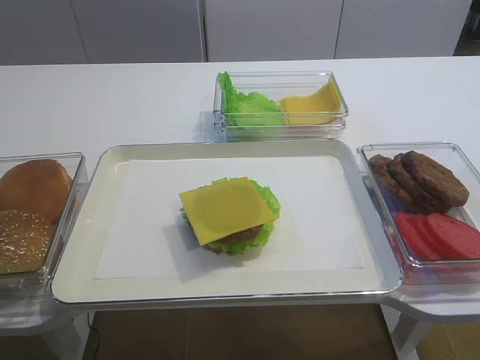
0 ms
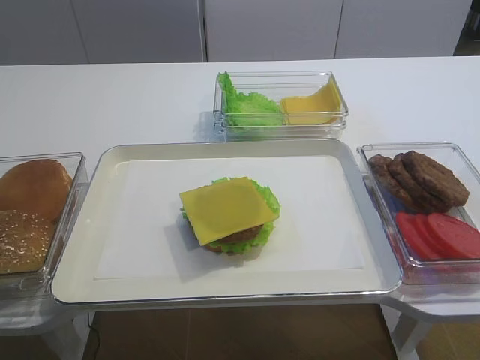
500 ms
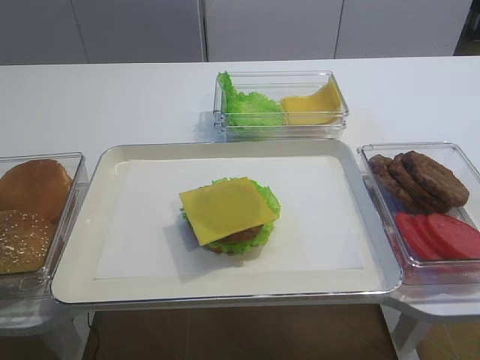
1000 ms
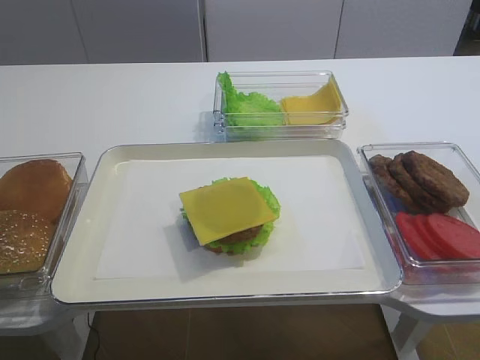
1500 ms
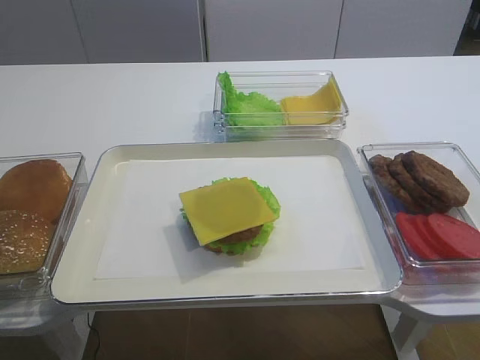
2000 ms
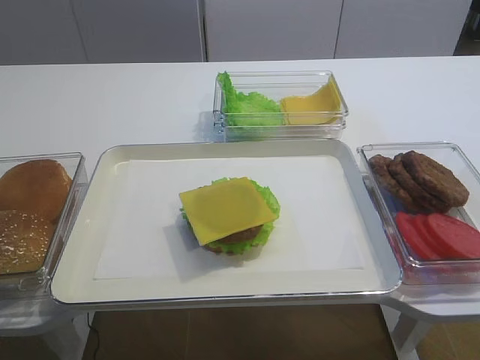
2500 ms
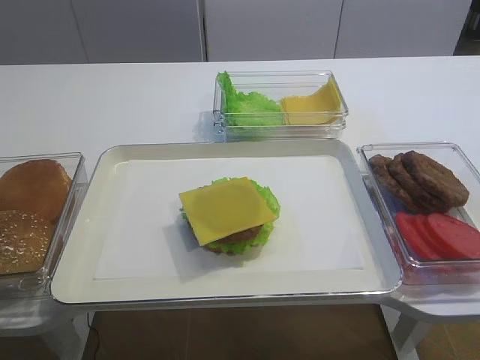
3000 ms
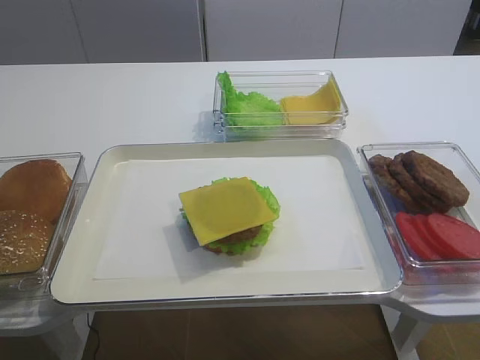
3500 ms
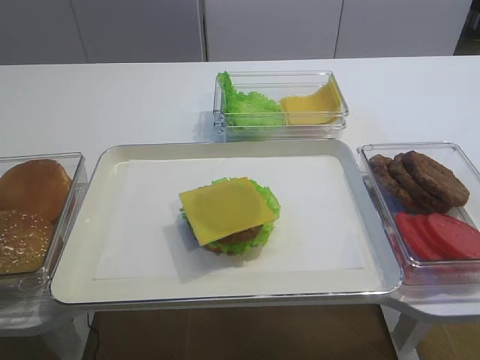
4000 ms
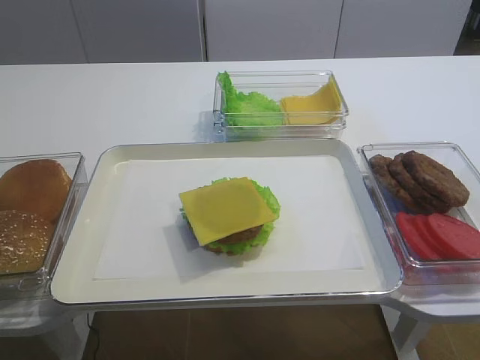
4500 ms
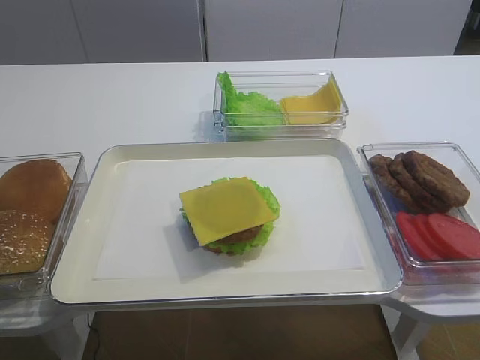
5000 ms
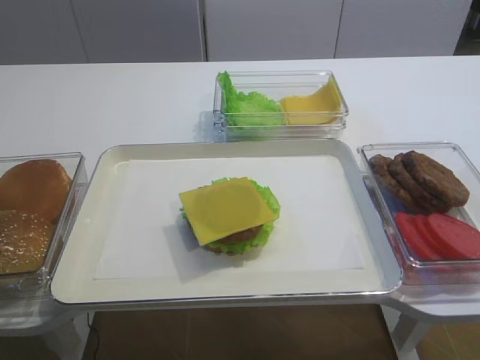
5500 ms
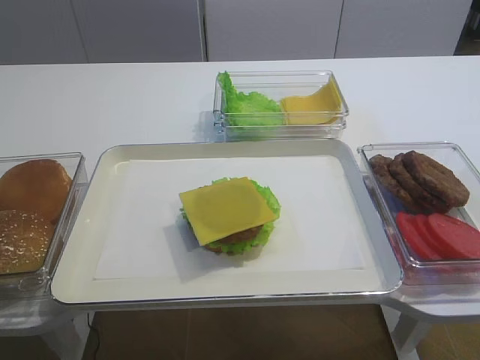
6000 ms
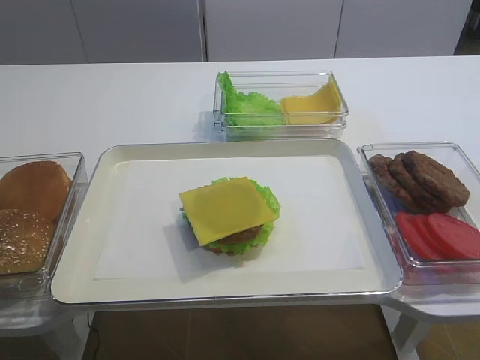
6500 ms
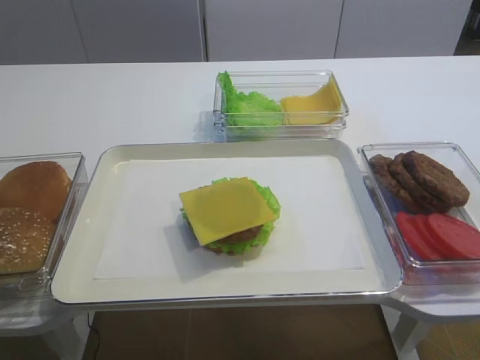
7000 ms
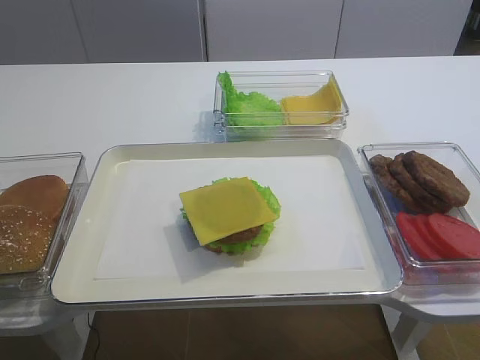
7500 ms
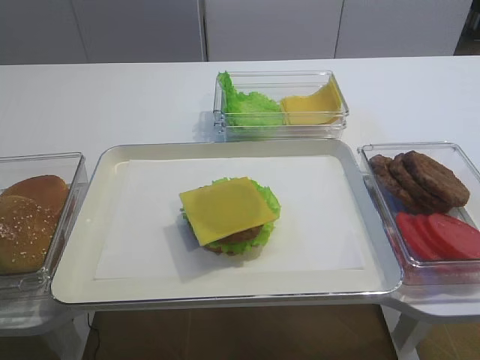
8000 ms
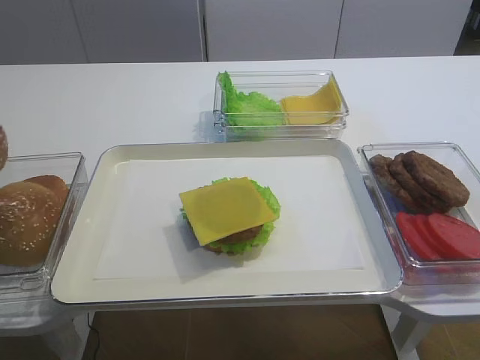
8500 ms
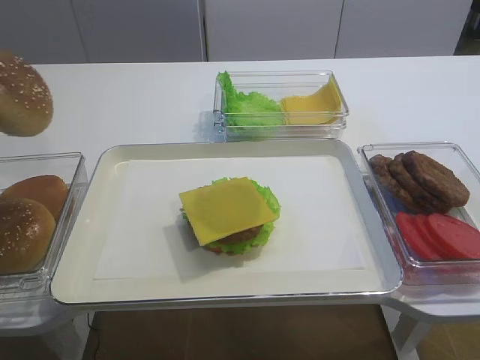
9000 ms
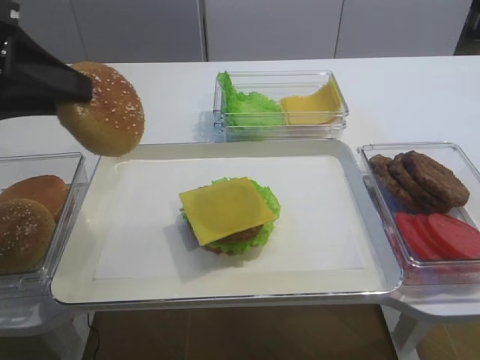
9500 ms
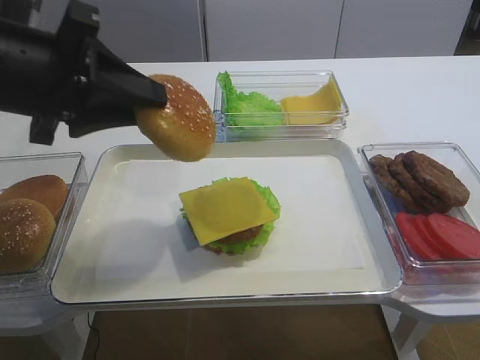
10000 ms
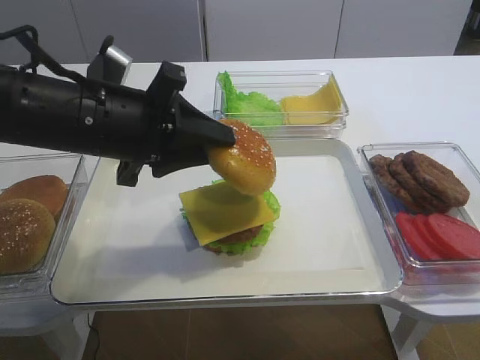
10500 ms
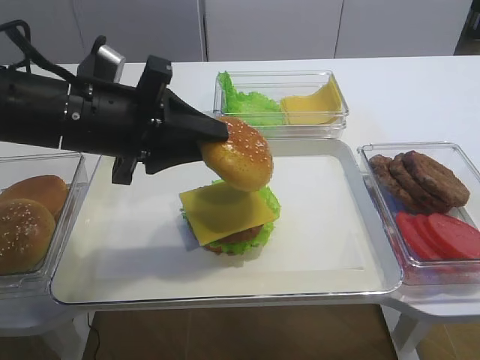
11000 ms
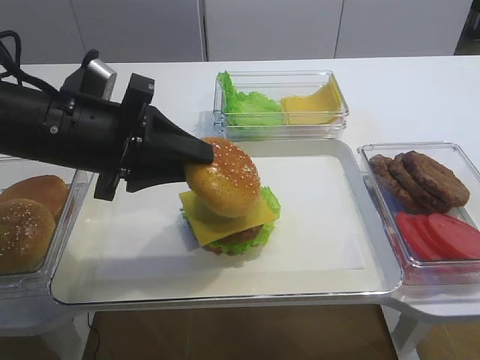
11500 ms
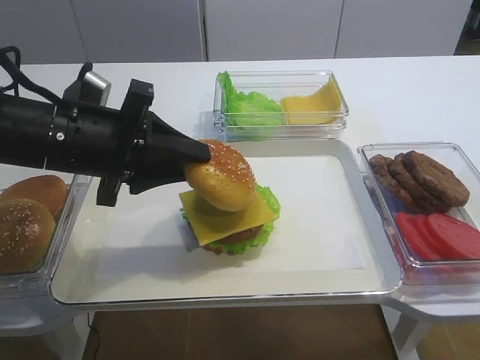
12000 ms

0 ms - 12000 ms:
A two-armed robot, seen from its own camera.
6000 ms - 8000 ms: The left gripper closes its fingers.
8000 ms - 10000 ms: The left gripper heads to the right, covering some 15 cm.
10000 ms - 12000 ms: The left gripper moves downward, about 10 cm.

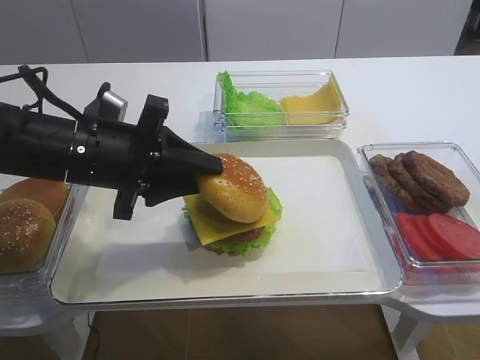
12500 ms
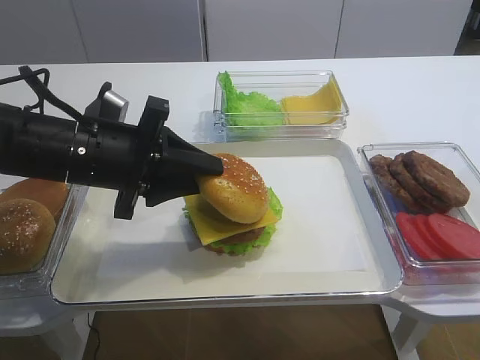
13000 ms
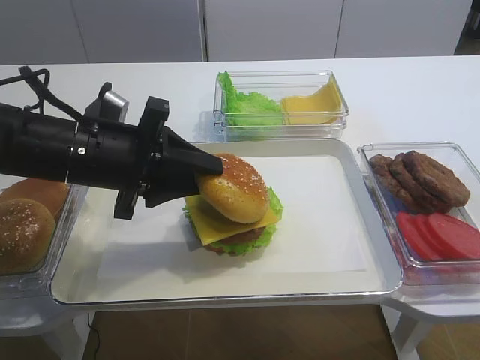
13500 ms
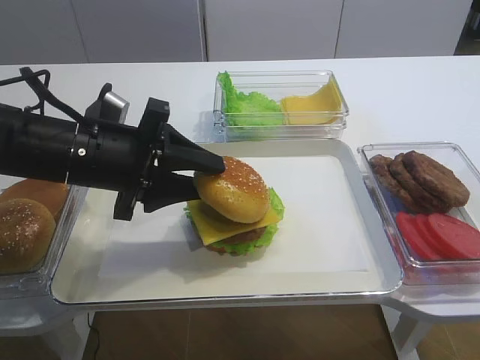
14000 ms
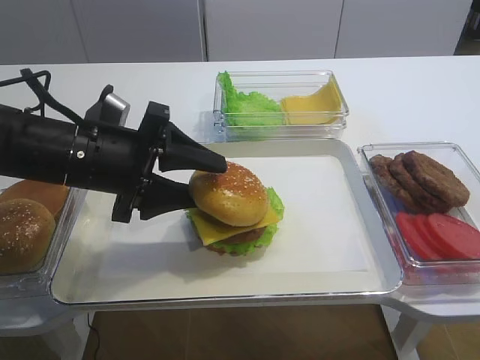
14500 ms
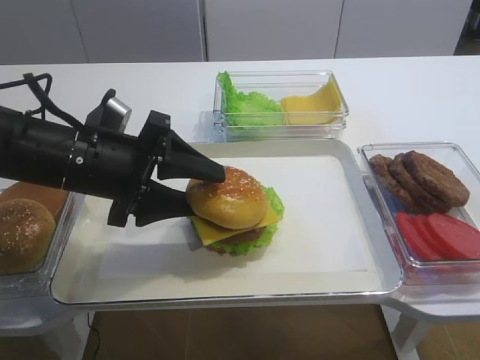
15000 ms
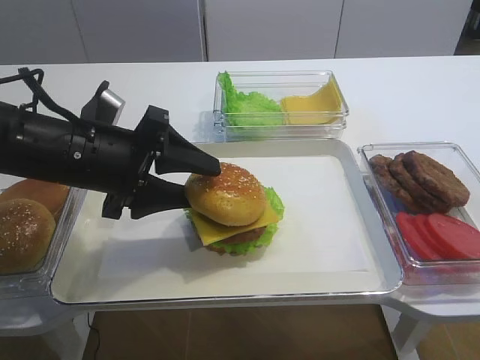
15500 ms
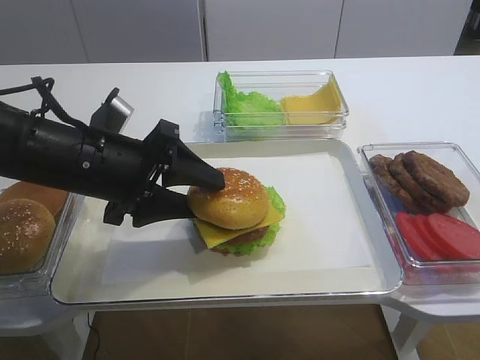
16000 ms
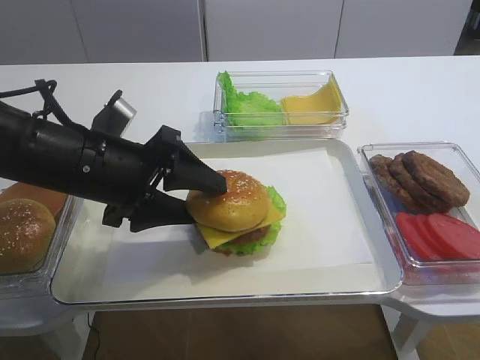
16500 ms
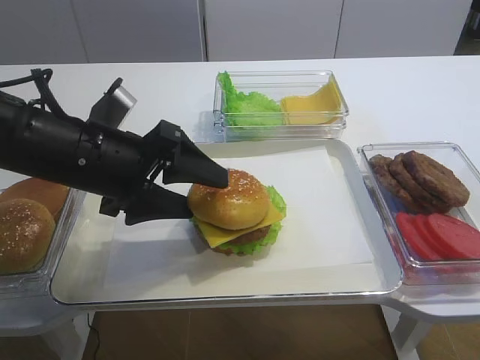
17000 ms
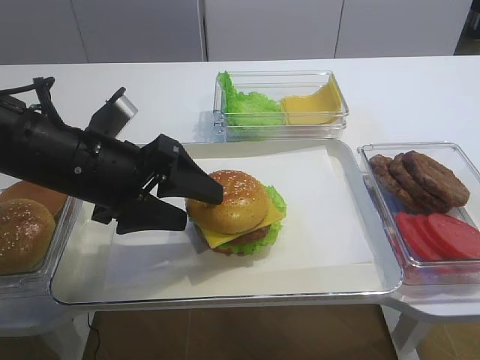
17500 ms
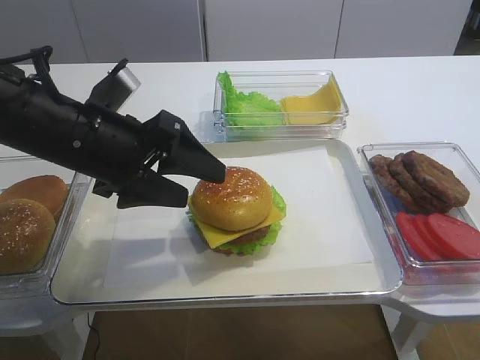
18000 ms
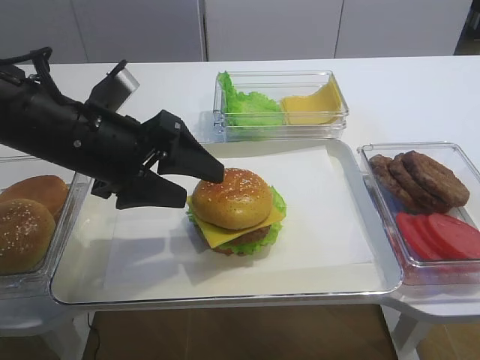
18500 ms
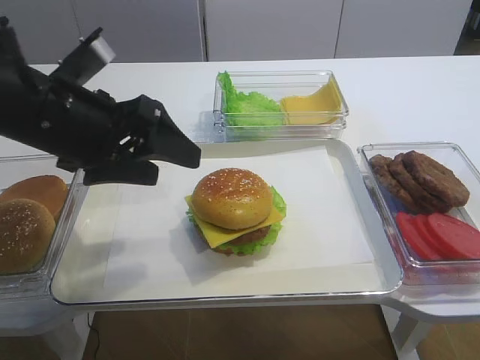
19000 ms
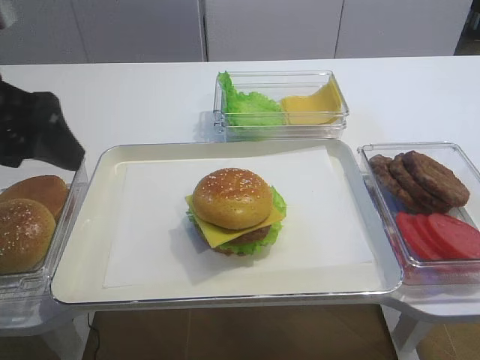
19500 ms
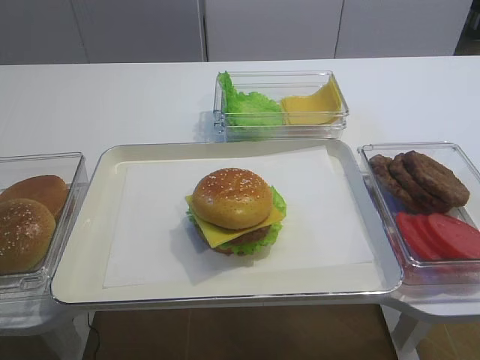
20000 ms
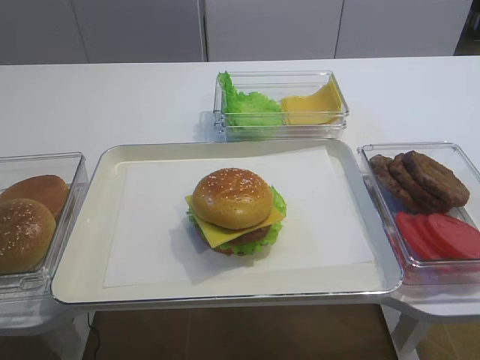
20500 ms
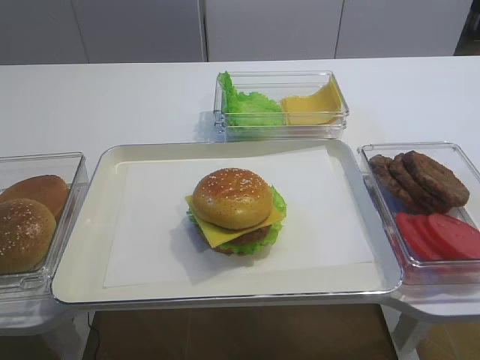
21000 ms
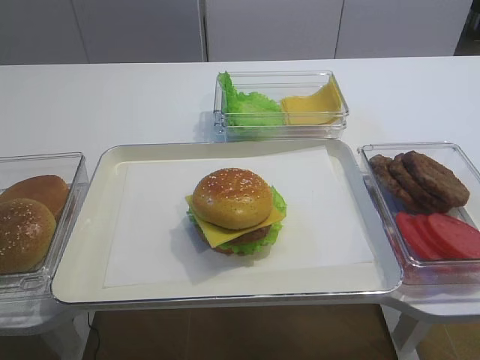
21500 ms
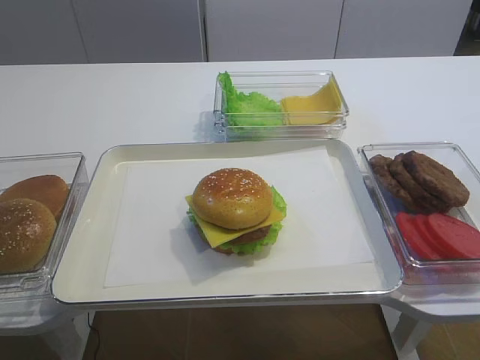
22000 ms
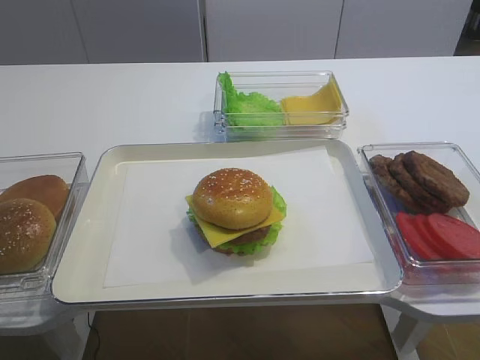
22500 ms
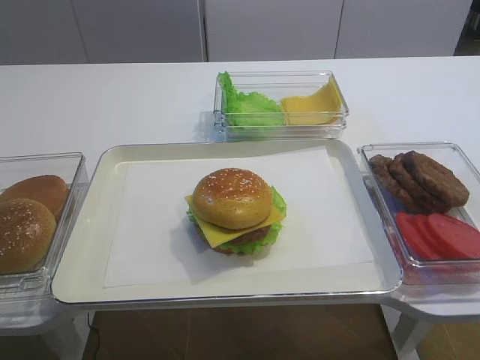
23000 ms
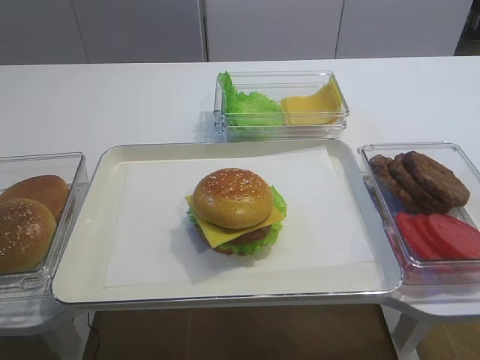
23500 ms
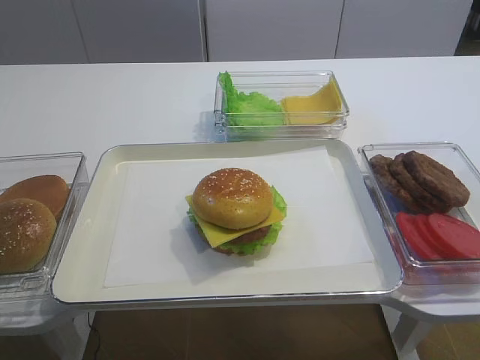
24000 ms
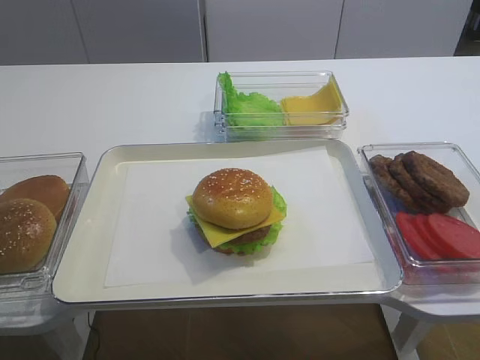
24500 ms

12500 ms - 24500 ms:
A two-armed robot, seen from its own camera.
Step, 12500 ms - 18500 ms: Place the hamburger lid on the cheese slice with the left gripper.
12500 ms - 14500 ms: The left gripper opens.
14500 ms - 16500 ms: There are only small adjustments of the grippers.
16500 ms - 18500 ms: The grippers make only small movements.
18500 ms - 20500 ms: The left gripper heads backward, upward and to the left, covering roughly 25 cm.

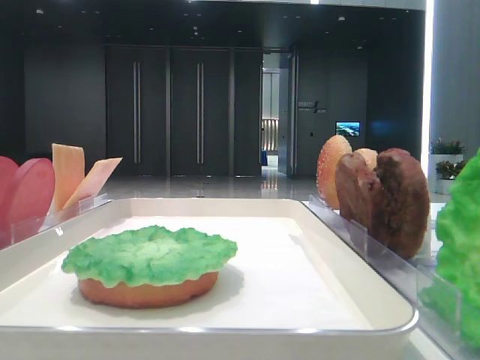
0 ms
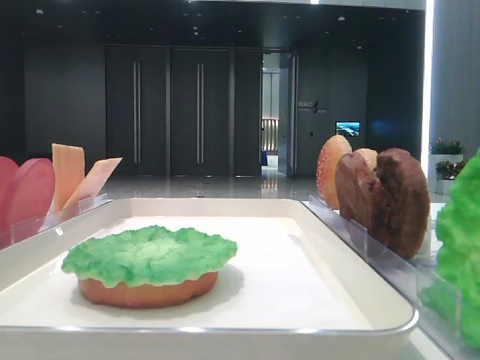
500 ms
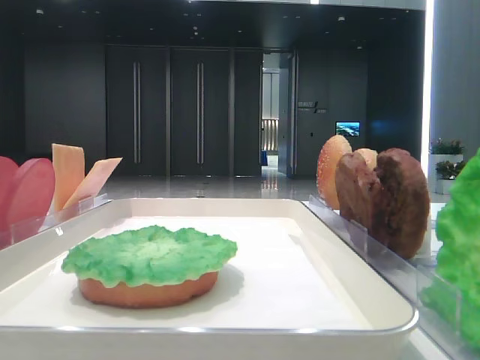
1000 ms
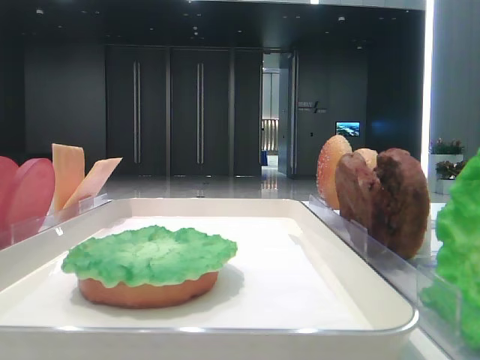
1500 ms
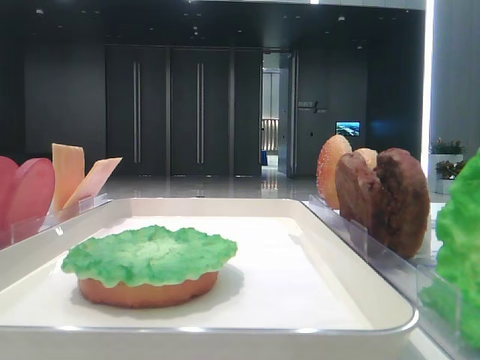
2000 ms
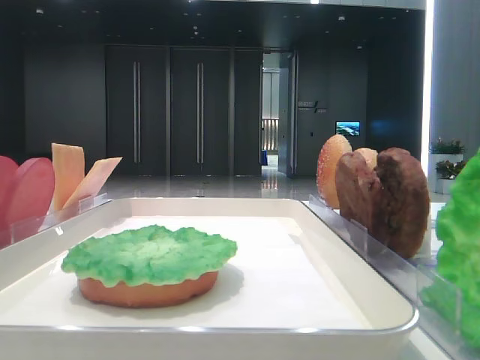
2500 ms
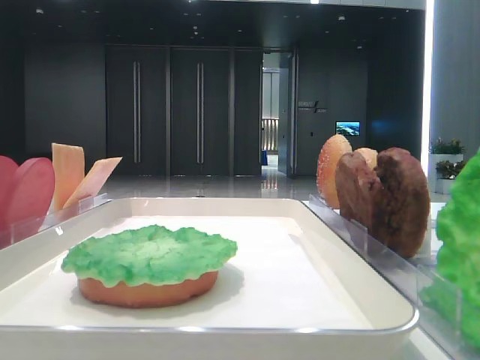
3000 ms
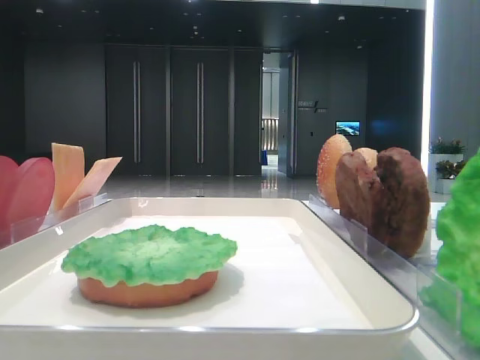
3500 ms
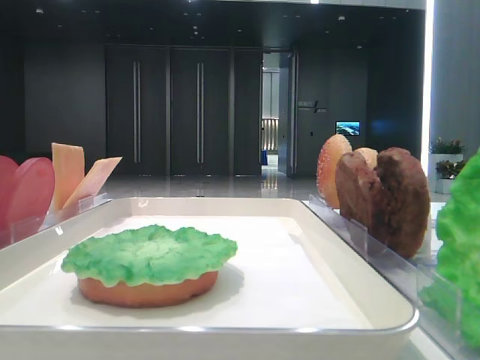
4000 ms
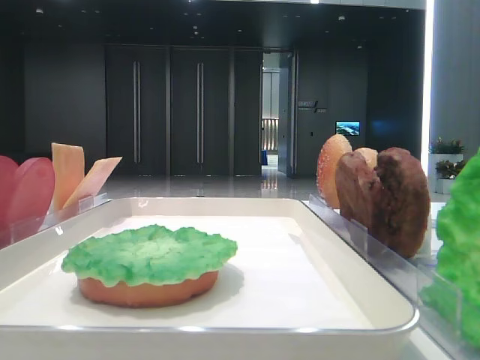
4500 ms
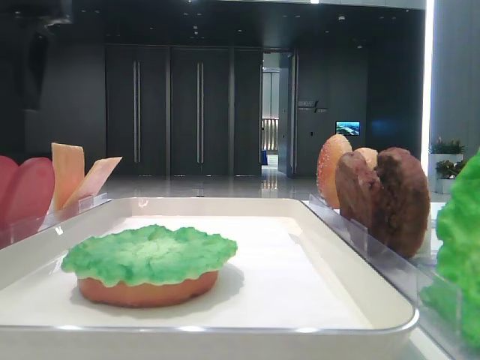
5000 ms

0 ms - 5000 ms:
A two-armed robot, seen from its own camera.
2500 ms - 5000 ms: The left gripper shifts about 15 cm forward and to the right.
